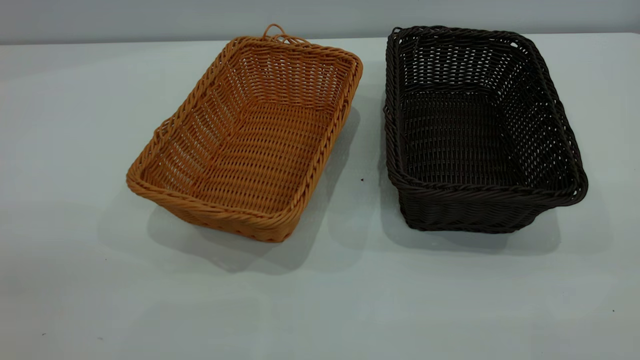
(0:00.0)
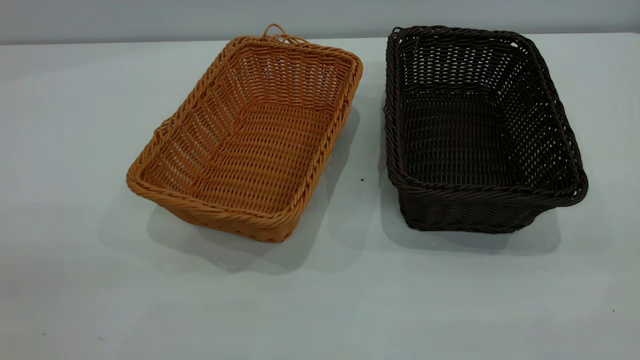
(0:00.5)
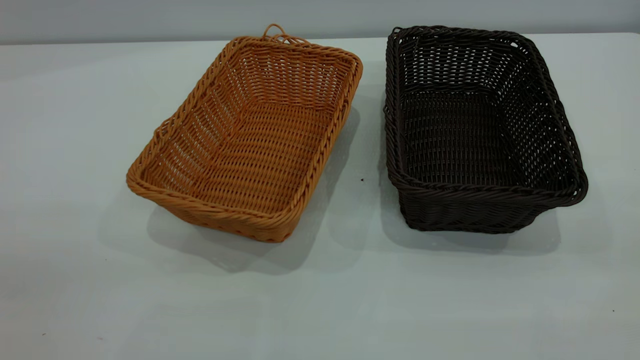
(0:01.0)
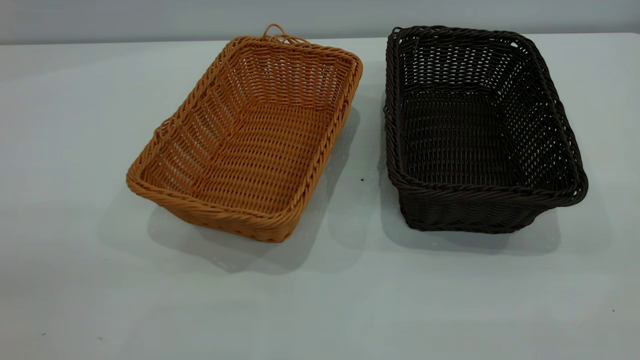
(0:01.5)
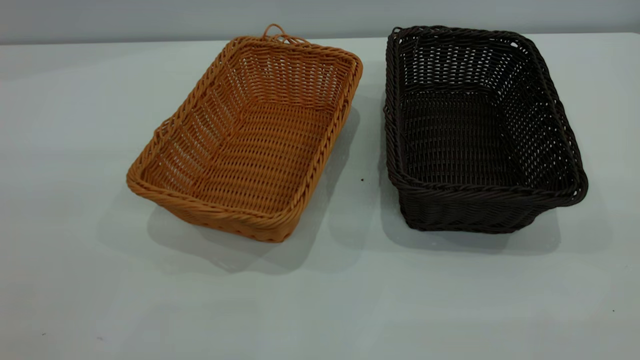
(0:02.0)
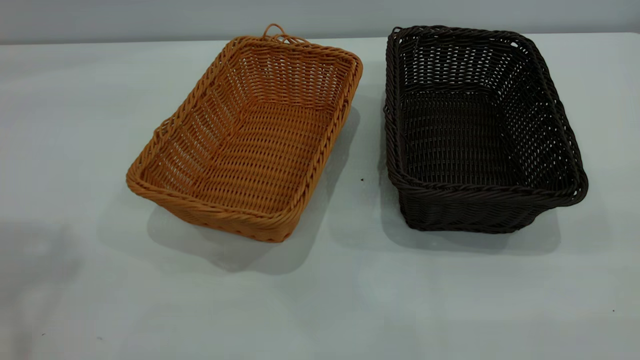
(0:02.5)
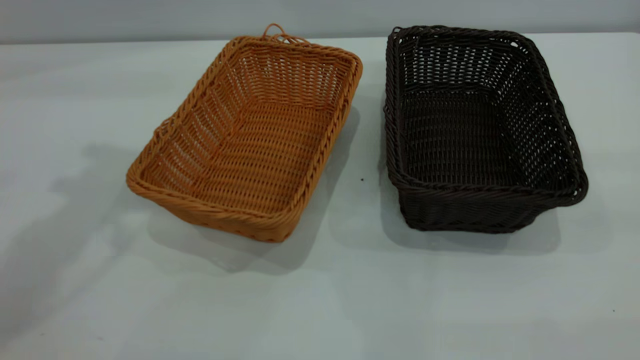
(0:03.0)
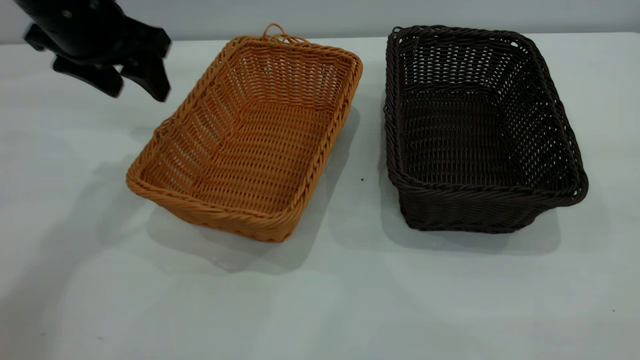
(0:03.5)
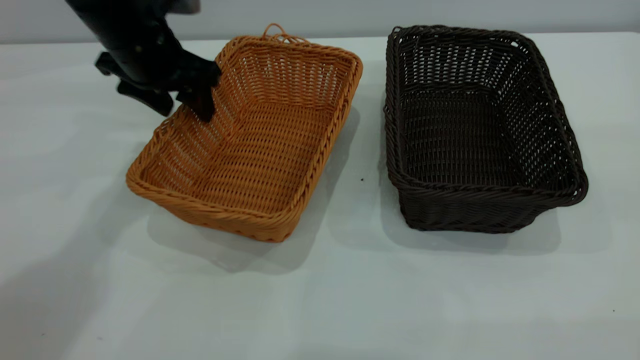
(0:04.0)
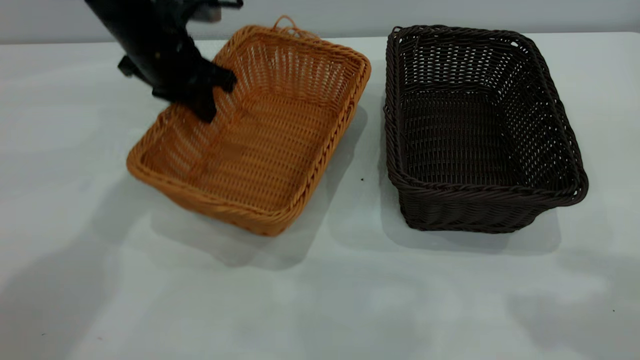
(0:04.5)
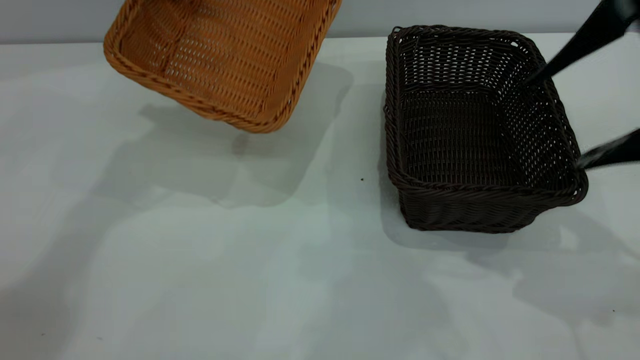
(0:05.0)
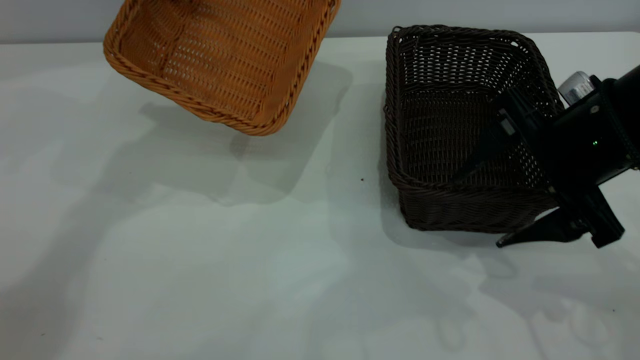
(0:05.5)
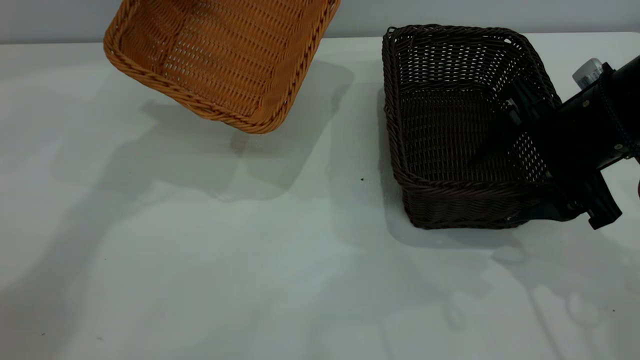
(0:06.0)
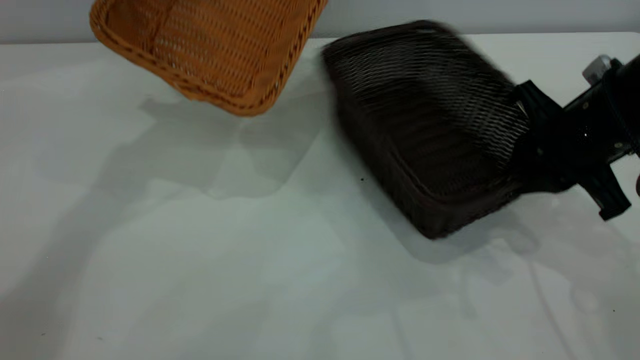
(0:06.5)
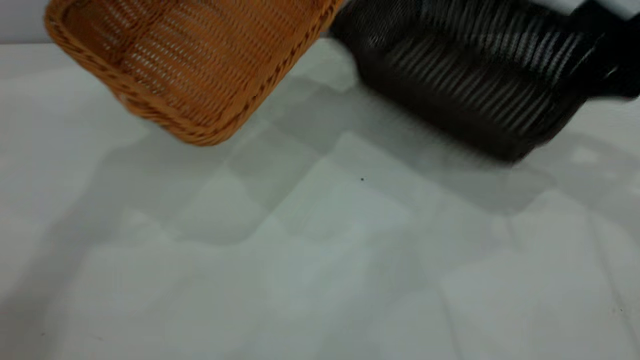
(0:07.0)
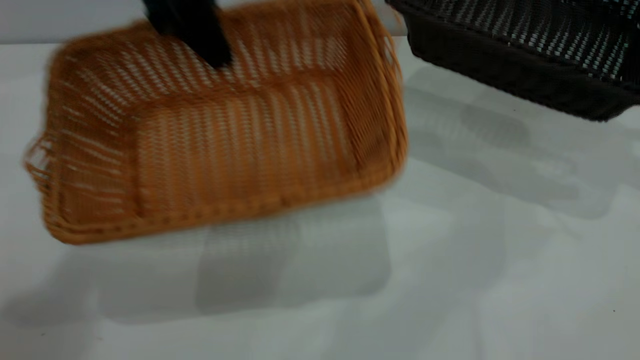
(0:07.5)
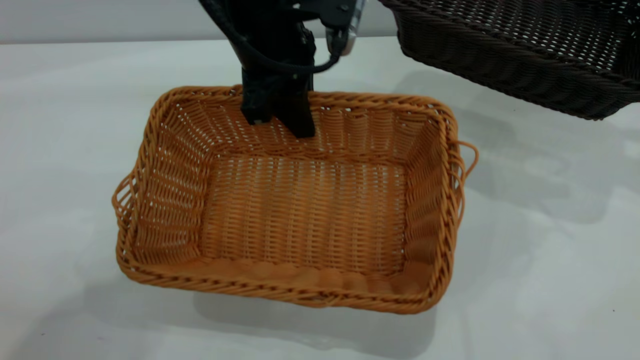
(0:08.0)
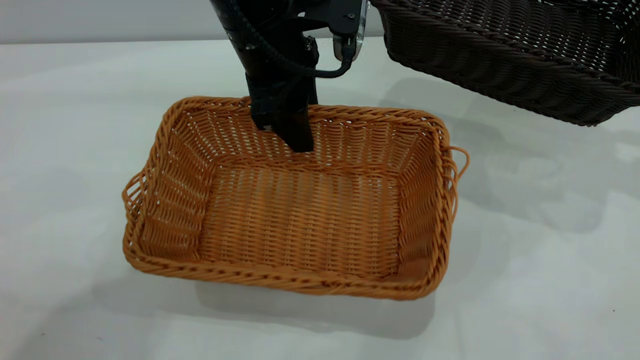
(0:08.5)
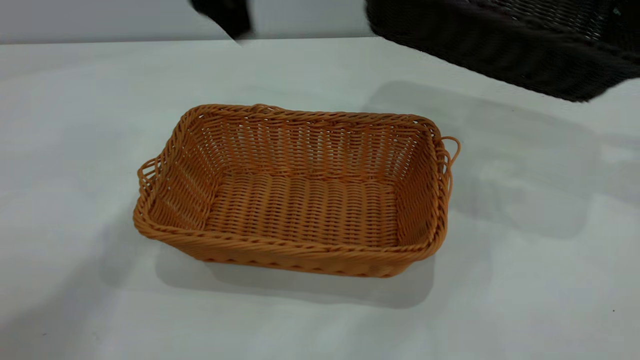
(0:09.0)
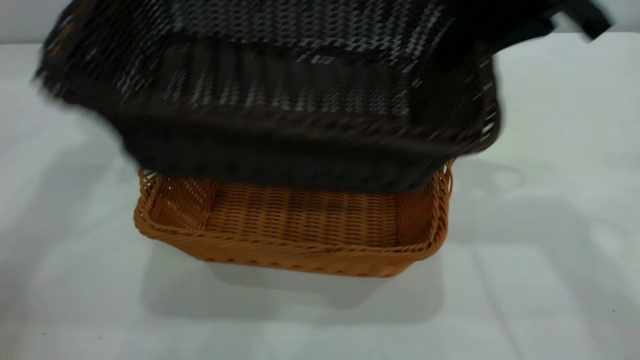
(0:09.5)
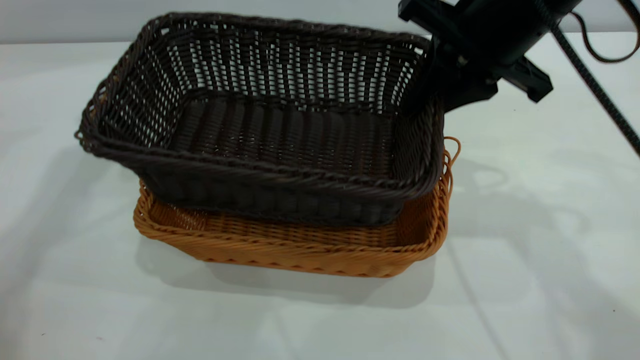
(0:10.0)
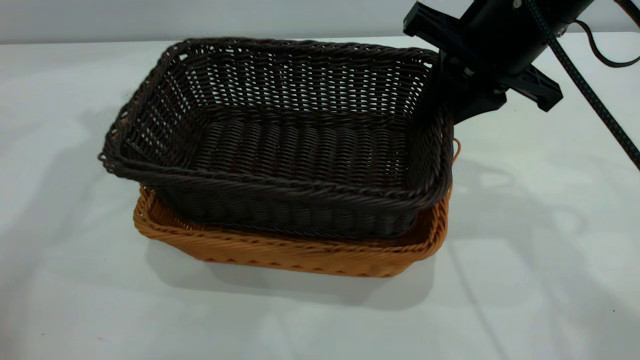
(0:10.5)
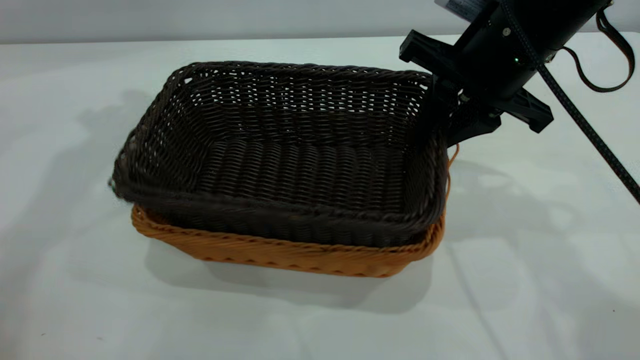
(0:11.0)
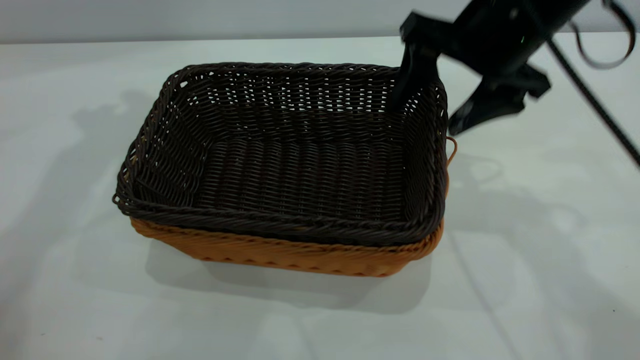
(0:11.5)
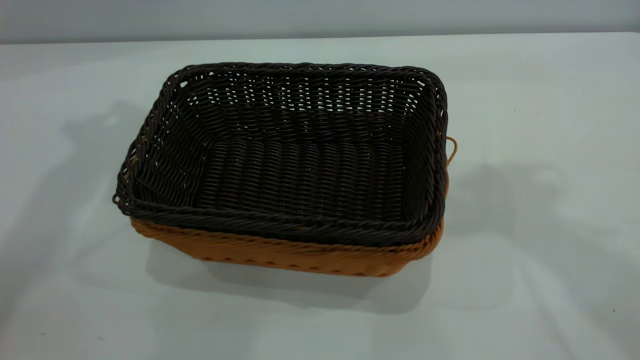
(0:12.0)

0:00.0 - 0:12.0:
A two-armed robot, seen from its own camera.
Task of the whole recording: the left gripper grasp the brown basket and place it in the center of the table, the right gripper grasp the black basket and place it inside the brown one.
Step, 0:00.0 - 0:07.0: Pick up the light basket with the right gripper.
Step, 0:07.5 - 0:08.5: Place the light-colored basket in the center.
Step, 0:09.0 - 0:11.5: Place the dark basket on top of the light basket.
0:02.0 - 0:04.0: The left gripper moves forward and downward, roughly 50 cm.
0:04.0 - 0:06.0: The right gripper travels downward and forward by approximately 30 cm, while the left gripper travels upward by about 10 cm, and closes.
0:06.0 - 0:08.0: The left gripper heads to the right, backward and downward, covering roughly 20 cm, while the right gripper travels to the right, upward and forward by about 20 cm, and closes its fingers.
0:08.0 - 0:10.0: The left gripper goes some 25 cm to the left and upward, and opens. The right gripper moves to the left, approximately 25 cm.
0:10.0 - 0:12.0: The left gripper heads upward, covering approximately 5 cm. The right gripper moves upward, some 20 cm, and opens.

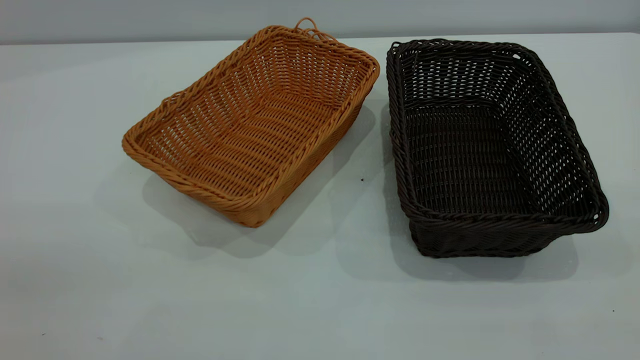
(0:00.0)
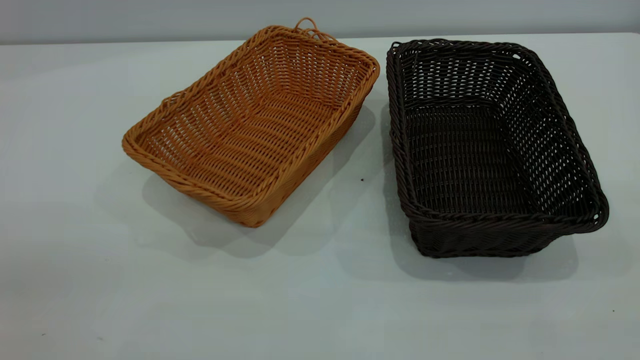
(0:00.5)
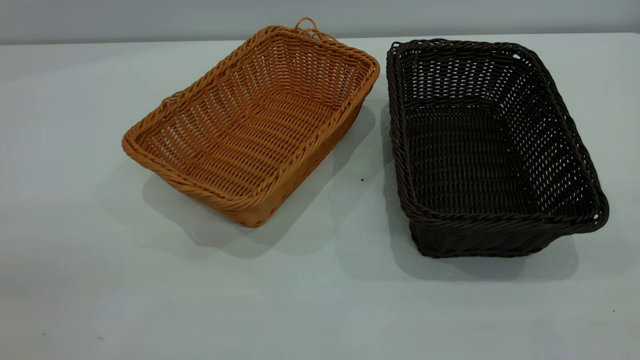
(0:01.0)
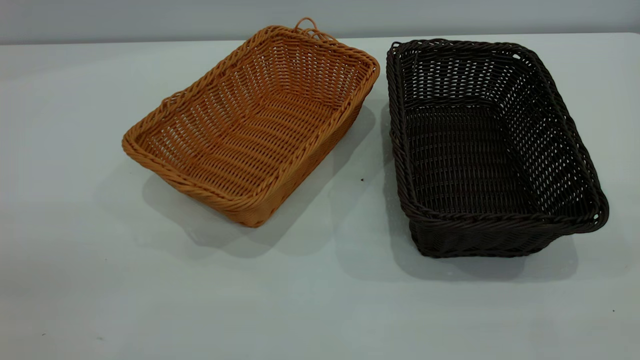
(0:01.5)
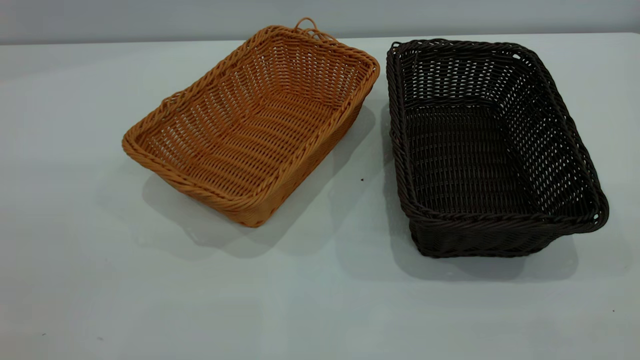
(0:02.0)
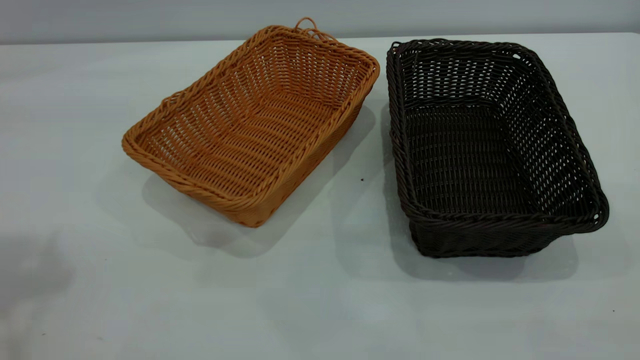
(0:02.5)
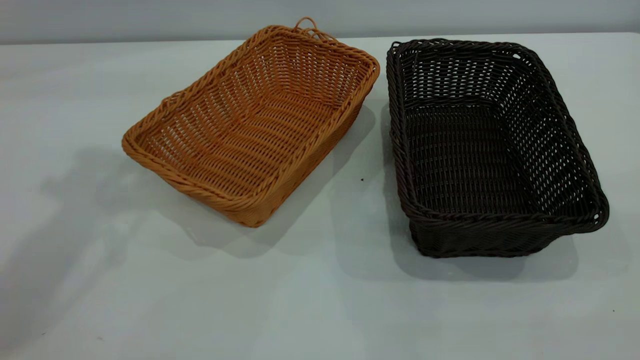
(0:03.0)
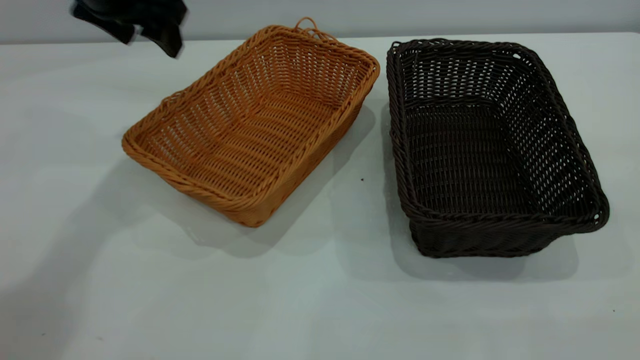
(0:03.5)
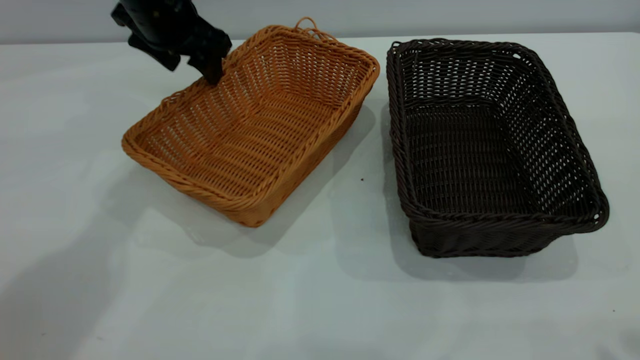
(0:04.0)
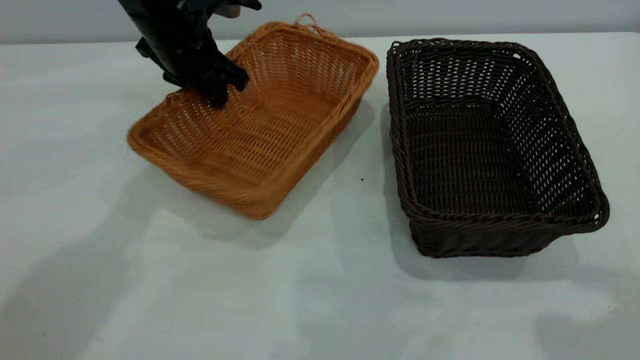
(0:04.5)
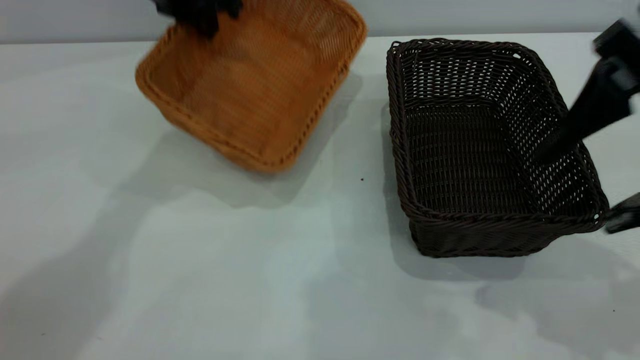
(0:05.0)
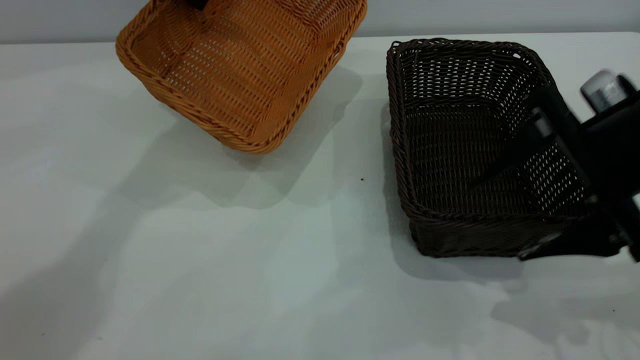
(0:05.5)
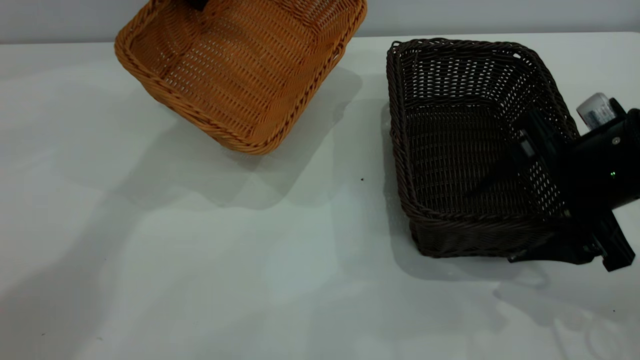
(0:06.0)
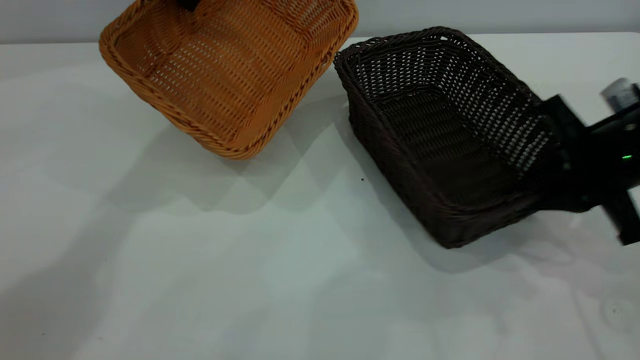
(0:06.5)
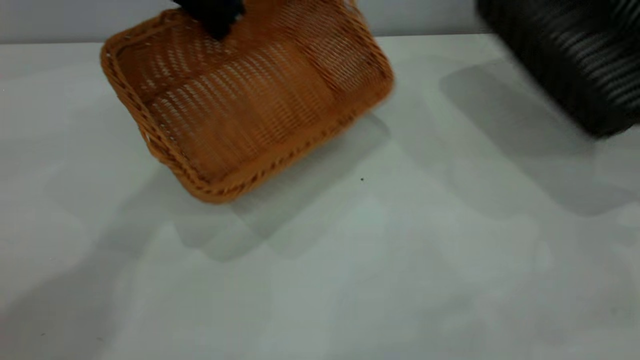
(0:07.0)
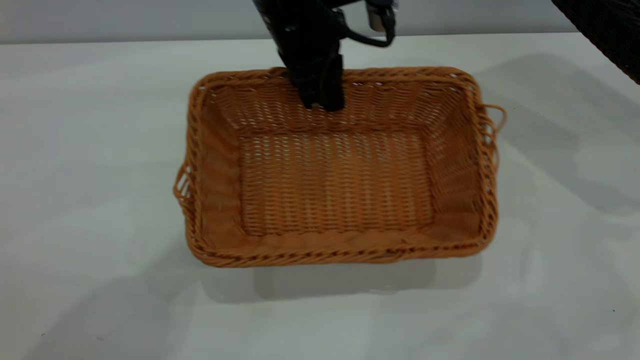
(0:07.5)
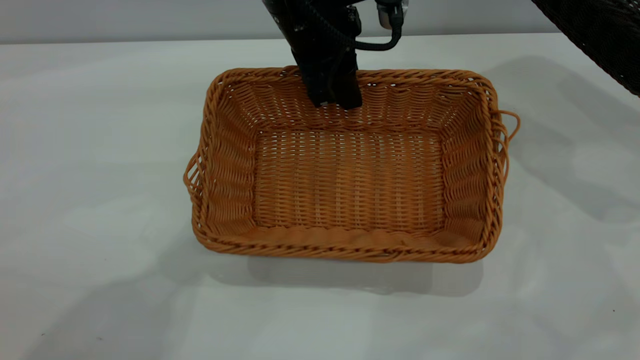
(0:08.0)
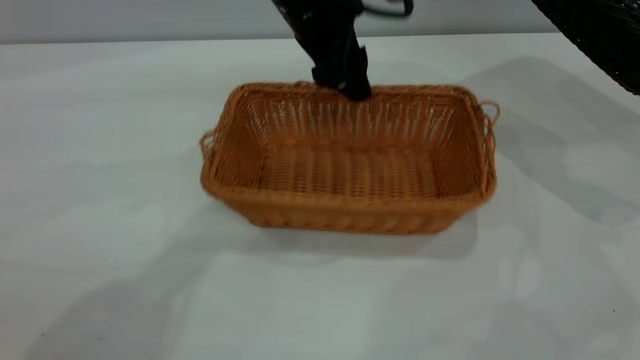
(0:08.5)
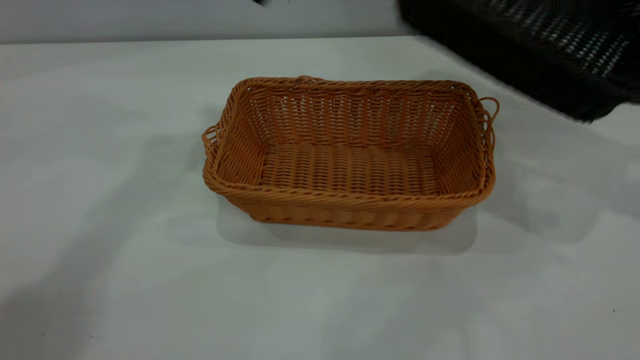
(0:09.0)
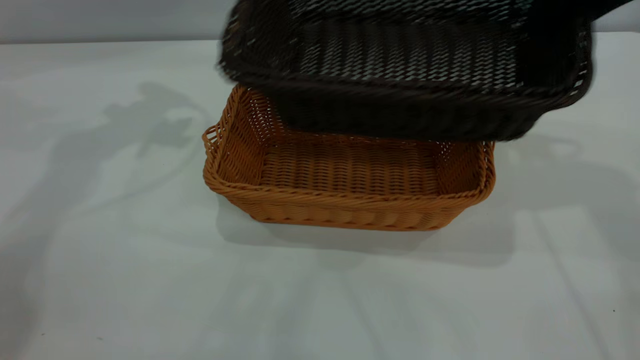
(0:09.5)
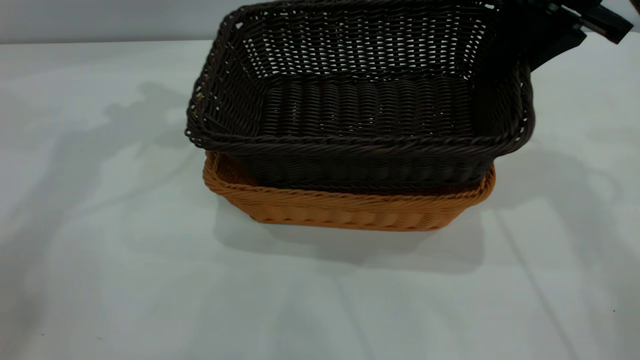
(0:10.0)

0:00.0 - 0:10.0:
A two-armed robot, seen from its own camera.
Task of the whole recording: the left gripper grasp the brown basket and place it in the center of the table, the right gripper grasp the black basket and place it inside the brown one.
Step, 0:00.0 - 0:06.5: Pick up the light basket with the right gripper.
Step, 0:07.0 - 0:08.5: Place the light-colored basket in the center.
0:02.0 - 0:04.0: The left gripper goes about 50 cm forward and downward.
0:04.0 - 0:06.0: The right gripper heads downward and forward, covering roughly 30 cm. Meanwhile the left gripper shifts some 10 cm upward, and closes.
0:06.0 - 0:08.0: The right gripper goes about 25 cm to the right and upward, and closes up. Meanwhile the left gripper travels to the right and backward by roughly 15 cm.
0:08.0 - 0:10.0: The right gripper goes roughly 25 cm to the left. The left gripper travels to the left and upward by roughly 25 cm, and opens its fingers.
